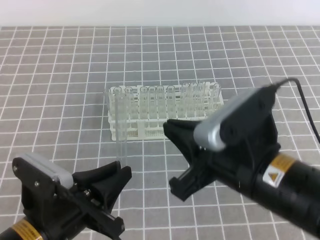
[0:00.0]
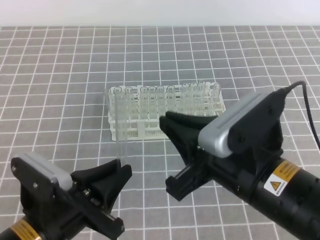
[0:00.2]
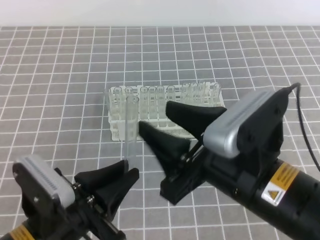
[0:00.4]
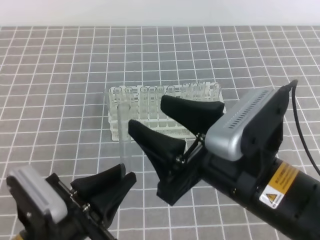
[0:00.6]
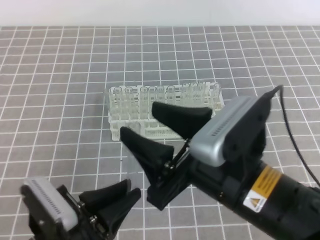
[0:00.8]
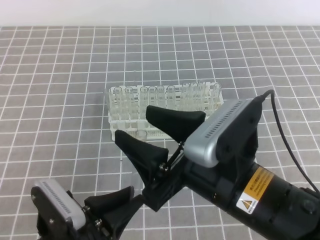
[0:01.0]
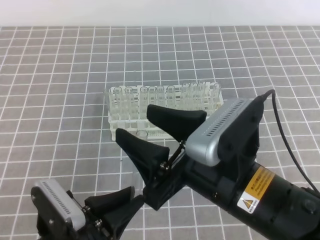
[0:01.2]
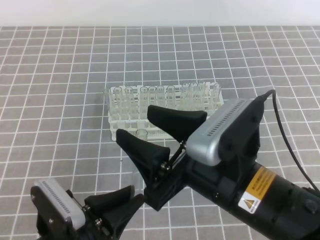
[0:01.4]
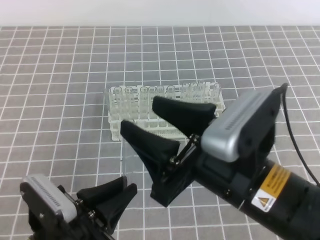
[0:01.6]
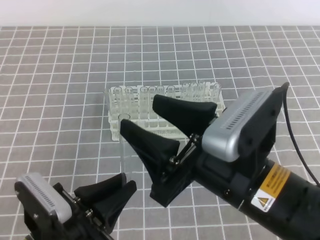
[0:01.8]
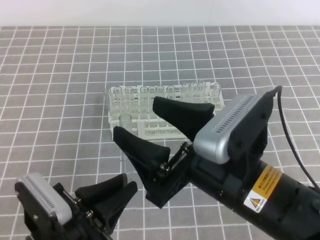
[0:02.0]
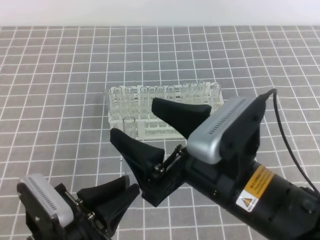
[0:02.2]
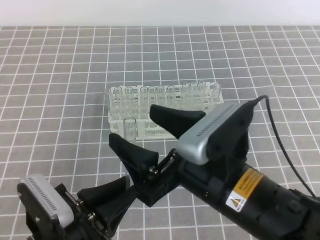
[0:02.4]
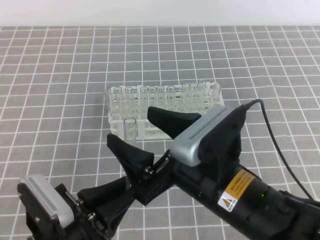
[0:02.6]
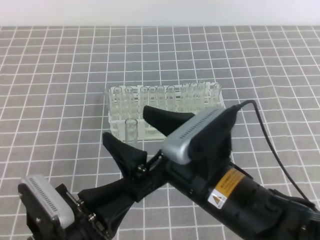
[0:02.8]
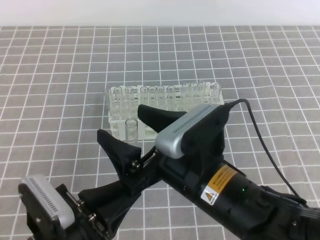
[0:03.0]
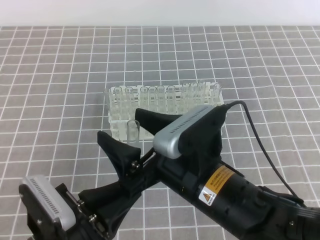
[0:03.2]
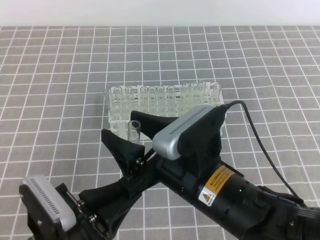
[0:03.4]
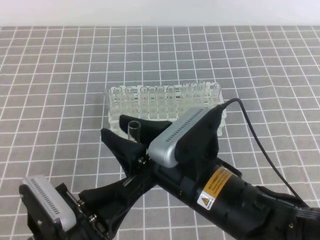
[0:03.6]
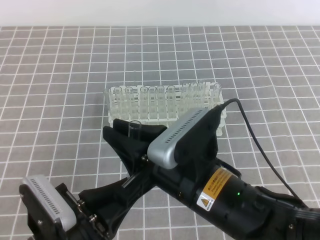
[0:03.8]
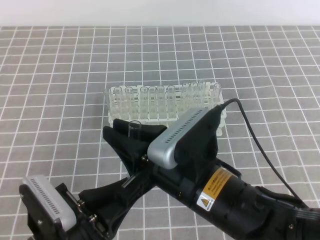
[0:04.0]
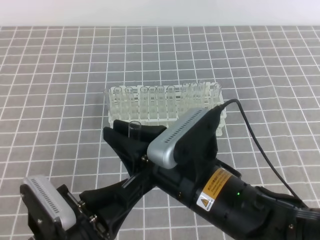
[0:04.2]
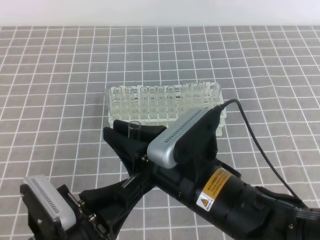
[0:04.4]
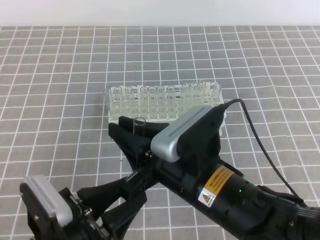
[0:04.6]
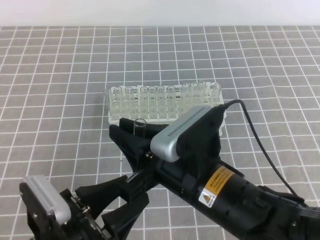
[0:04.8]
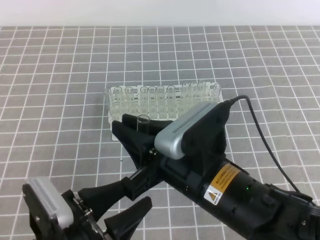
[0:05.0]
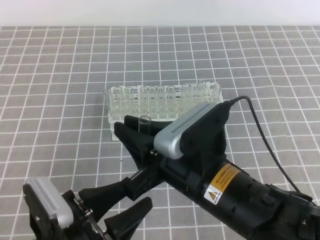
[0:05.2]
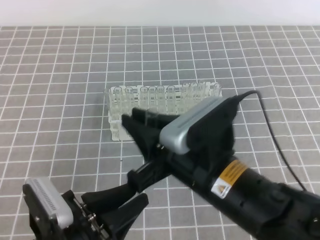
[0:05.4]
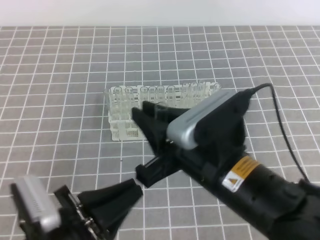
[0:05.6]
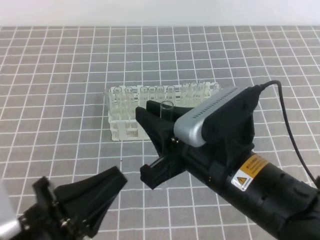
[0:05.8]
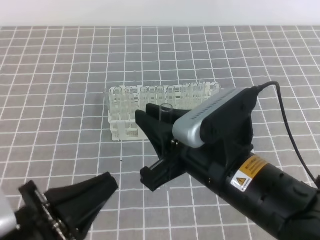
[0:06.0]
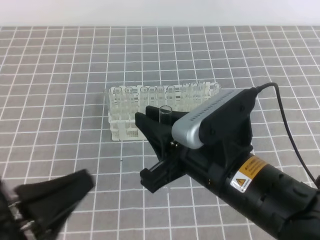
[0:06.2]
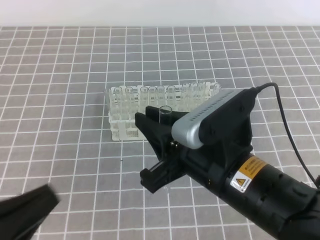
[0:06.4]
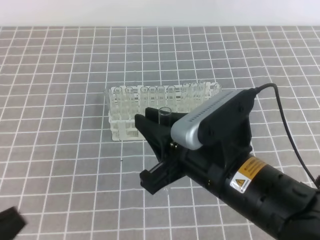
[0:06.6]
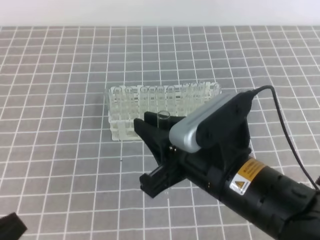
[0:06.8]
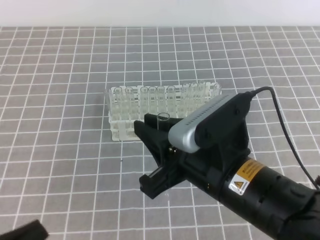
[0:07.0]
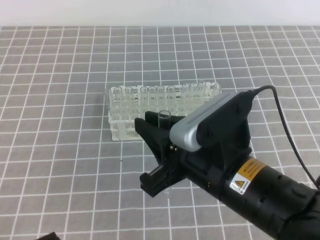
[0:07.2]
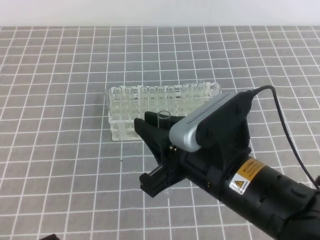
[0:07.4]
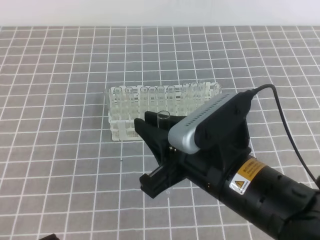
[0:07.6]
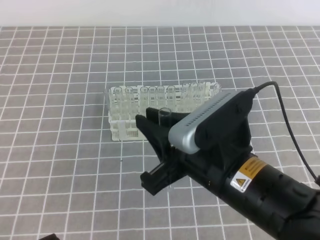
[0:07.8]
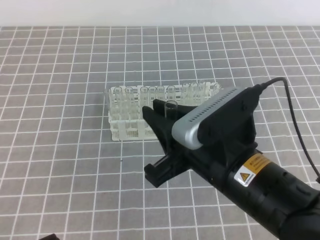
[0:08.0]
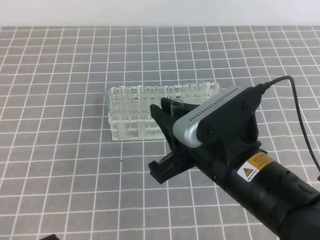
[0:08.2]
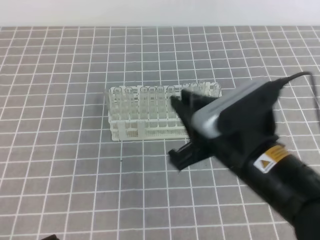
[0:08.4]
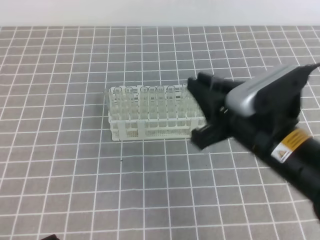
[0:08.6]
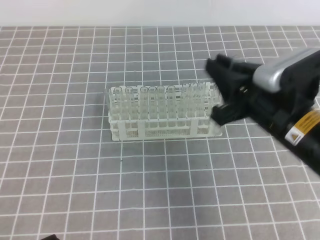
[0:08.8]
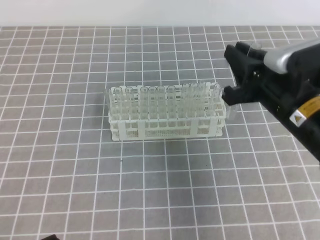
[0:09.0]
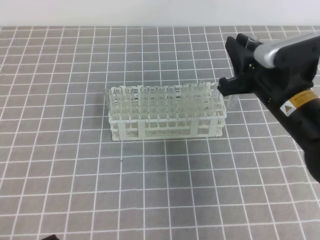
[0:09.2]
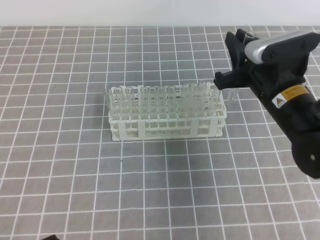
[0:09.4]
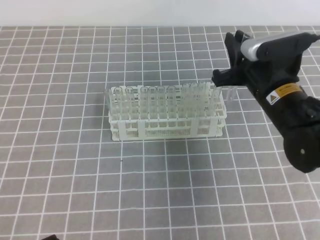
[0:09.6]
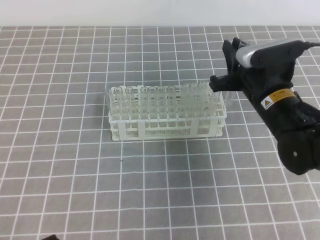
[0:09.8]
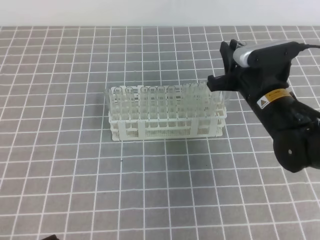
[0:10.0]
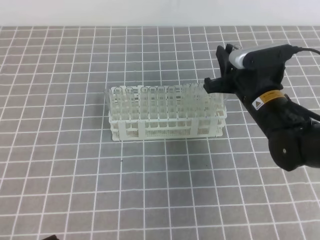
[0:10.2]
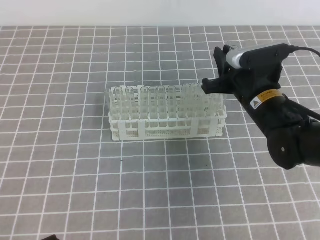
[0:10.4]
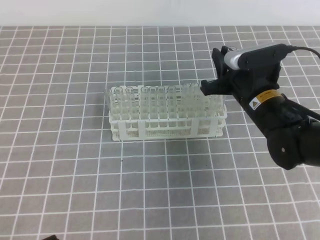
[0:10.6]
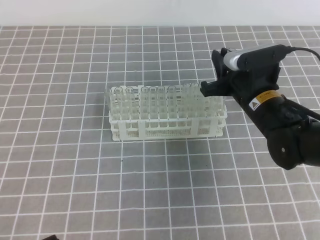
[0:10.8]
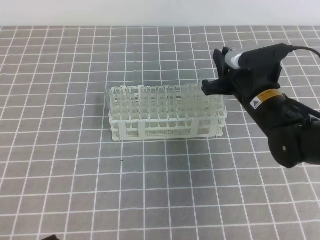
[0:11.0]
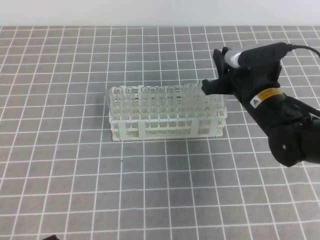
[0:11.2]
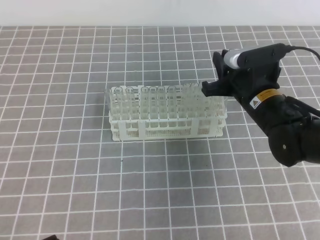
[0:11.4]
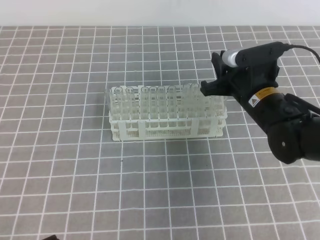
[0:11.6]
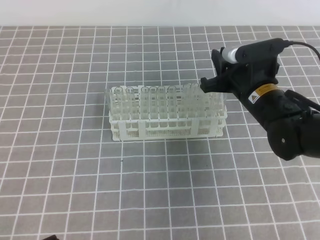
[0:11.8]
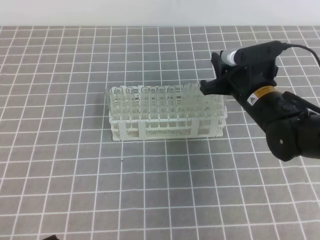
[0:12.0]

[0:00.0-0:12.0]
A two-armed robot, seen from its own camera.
0:00.0 to 0:01.6: The right gripper opens.
0:01.6 to 0:03.0: The right gripper shifts by roughly 5 cm.
0:03.0 to 0:04.4: The right gripper closes.
0:04.4 to 0:06.0: The left gripper travels upward by approximately 5 cm, and opens, then closes once more.
0:06.0 to 0:07.6: The left gripper shifts roughly 10 cm to the left, downward and backward.
0:07.6 to 0:09.0: The right gripper moves forward and to the right, about 15 cm.
0:09.0 to 0:10.4: The right gripper is displaced forward and downward by roughly 10 cm.
0:10.4 to 0:12.0: The grippers move only a little.

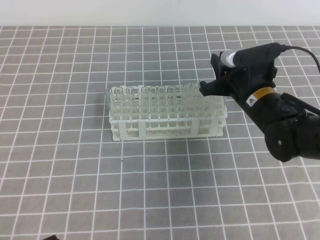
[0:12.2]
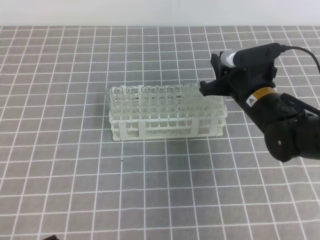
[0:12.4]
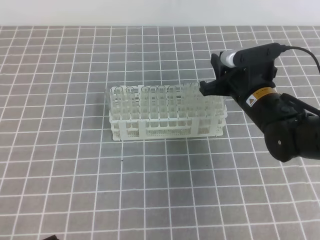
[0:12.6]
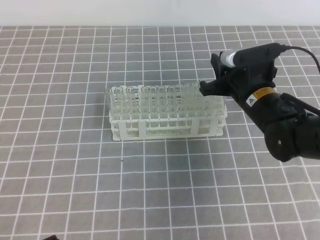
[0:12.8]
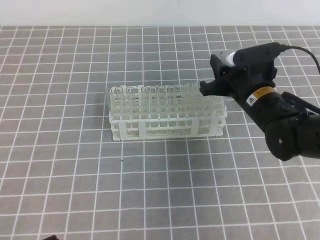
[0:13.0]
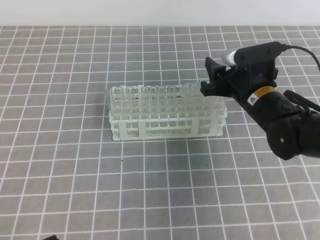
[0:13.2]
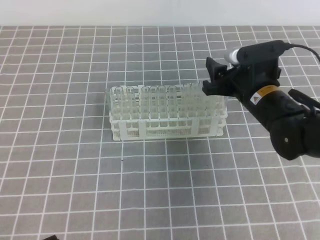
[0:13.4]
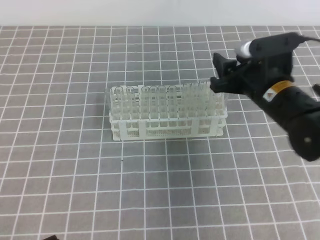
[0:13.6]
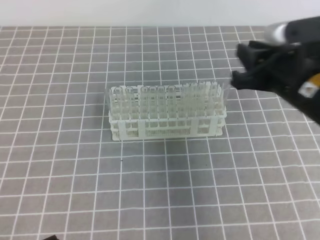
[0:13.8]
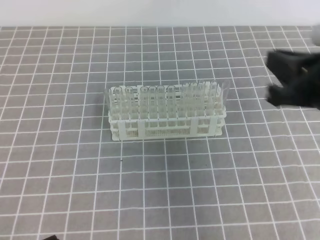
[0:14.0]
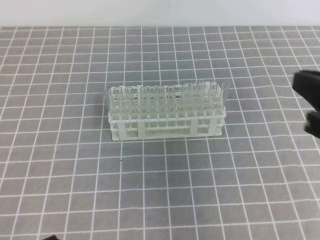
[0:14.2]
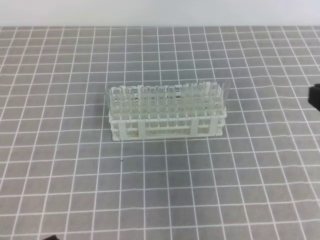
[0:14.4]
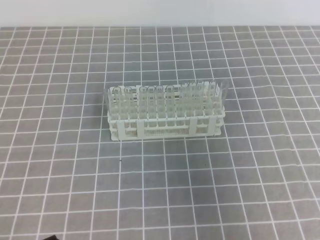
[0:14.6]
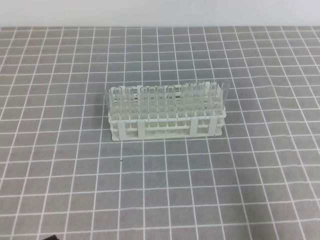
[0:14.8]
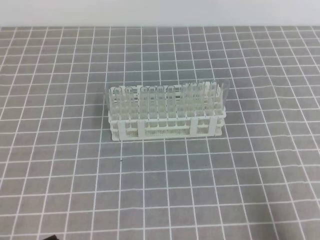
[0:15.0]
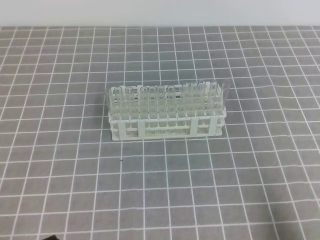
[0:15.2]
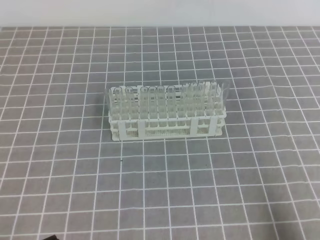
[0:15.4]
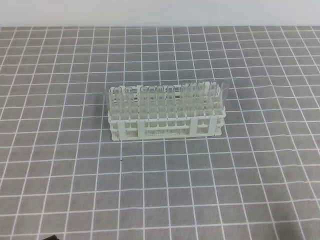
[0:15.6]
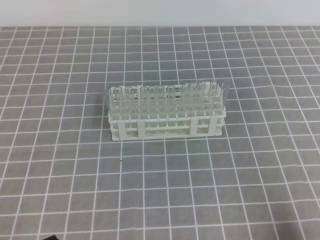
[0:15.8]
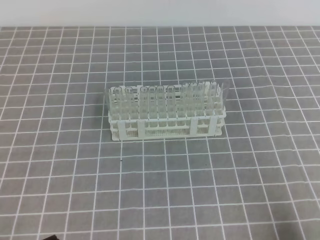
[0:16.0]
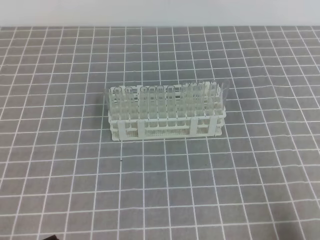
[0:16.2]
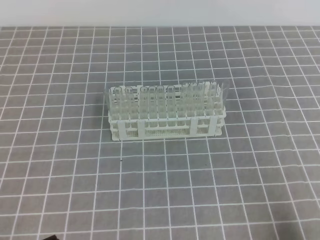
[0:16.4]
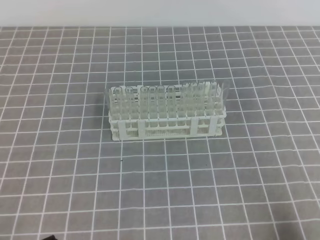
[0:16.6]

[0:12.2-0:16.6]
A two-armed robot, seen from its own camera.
0:12.2 to 0:13.6: The right gripper ends up roughly 5 cm from where it was, and opens.
0:13.6 to 0:15.2: The right gripper heads backward and to the right, covering some 30 cm, and closes.
